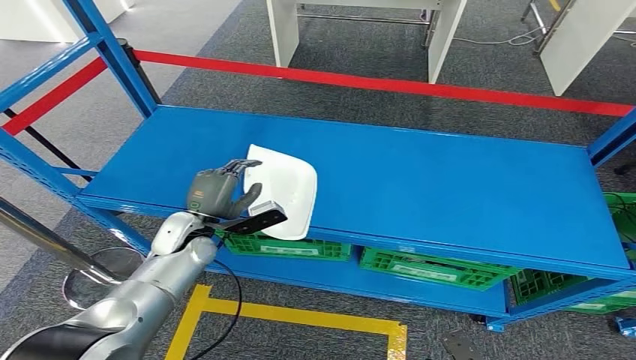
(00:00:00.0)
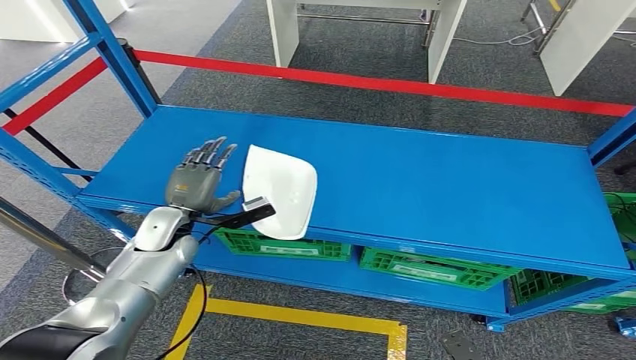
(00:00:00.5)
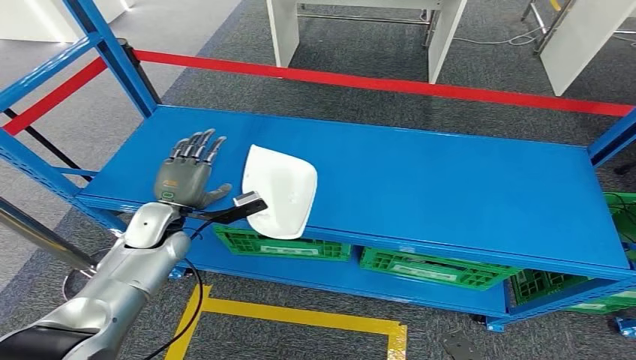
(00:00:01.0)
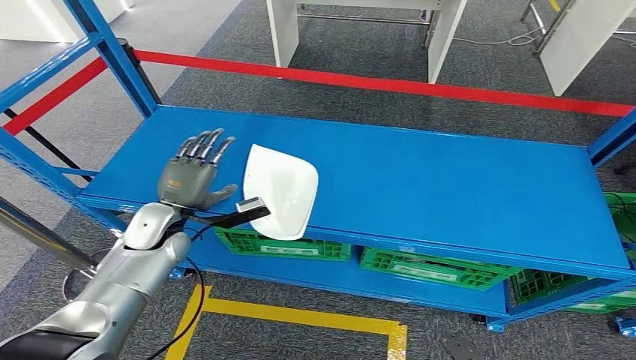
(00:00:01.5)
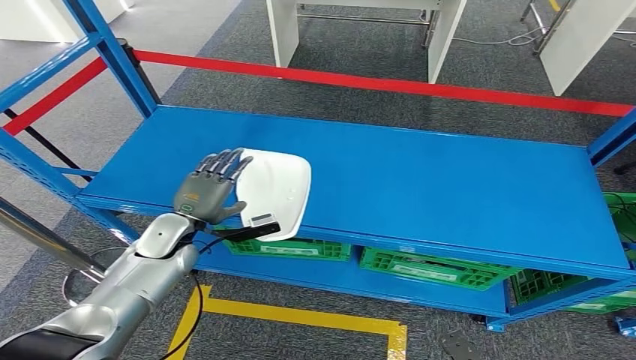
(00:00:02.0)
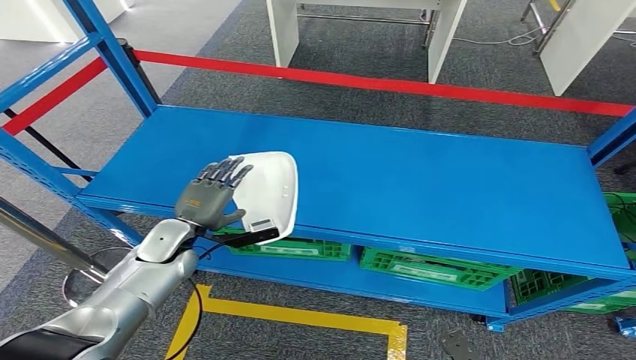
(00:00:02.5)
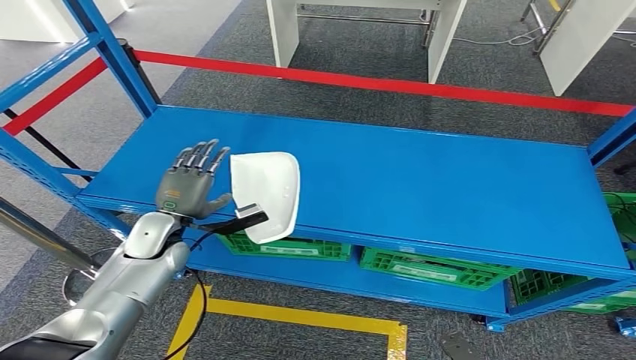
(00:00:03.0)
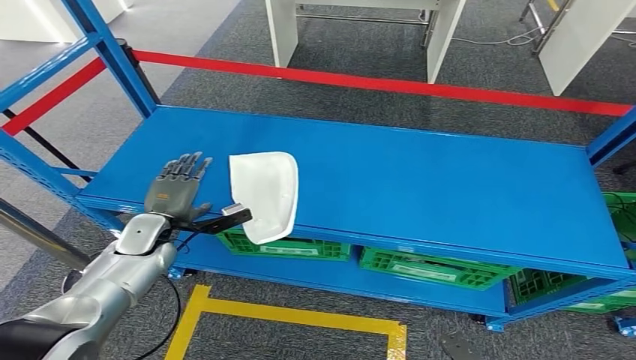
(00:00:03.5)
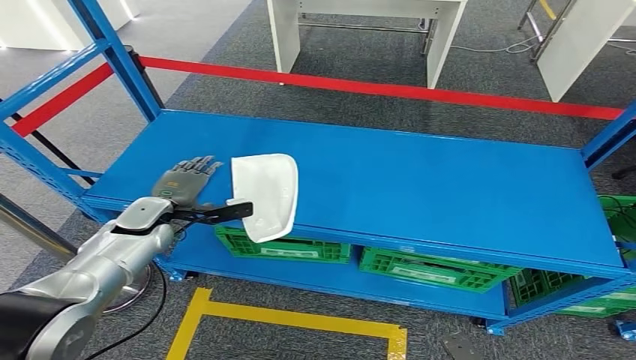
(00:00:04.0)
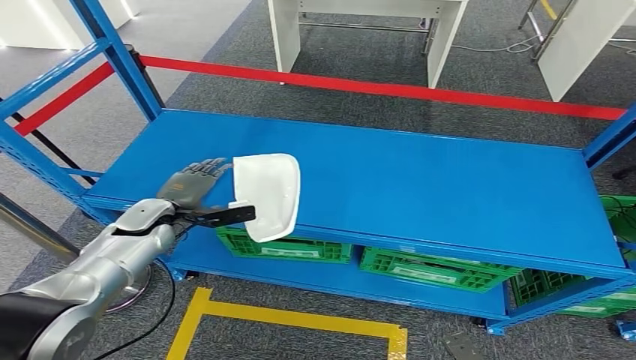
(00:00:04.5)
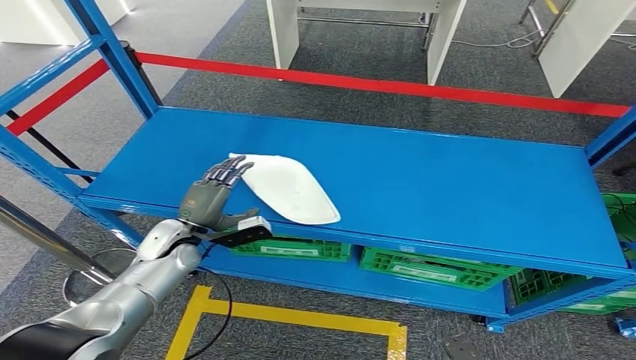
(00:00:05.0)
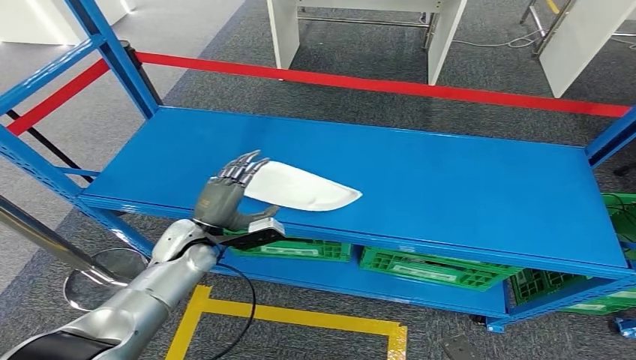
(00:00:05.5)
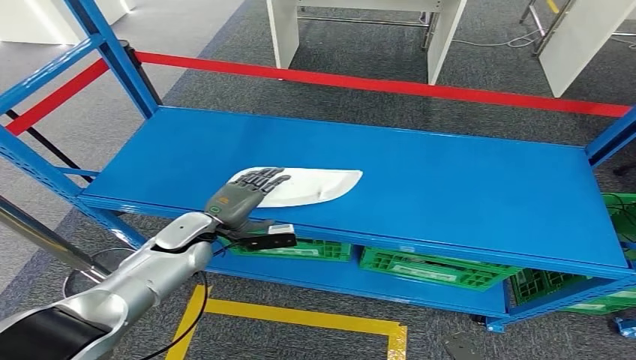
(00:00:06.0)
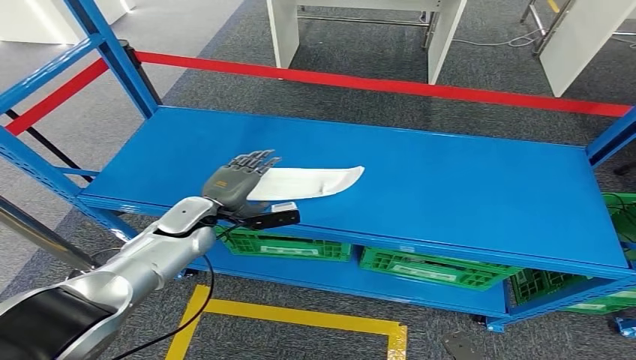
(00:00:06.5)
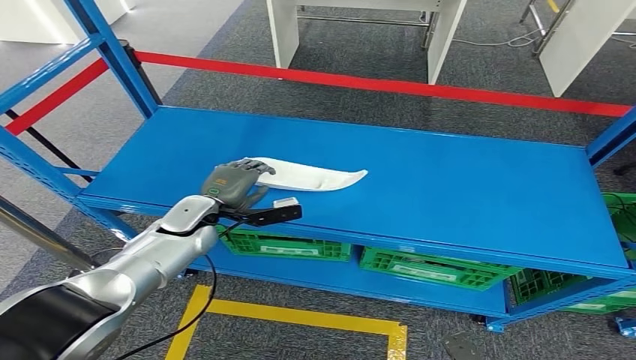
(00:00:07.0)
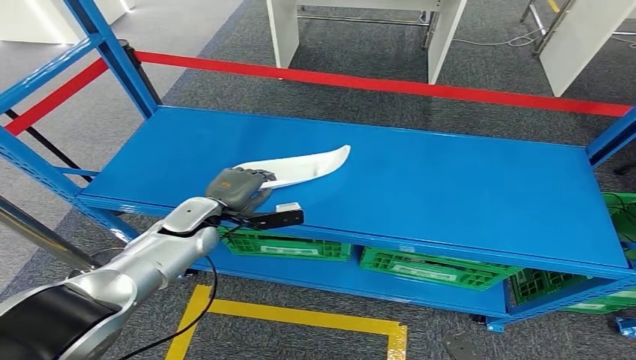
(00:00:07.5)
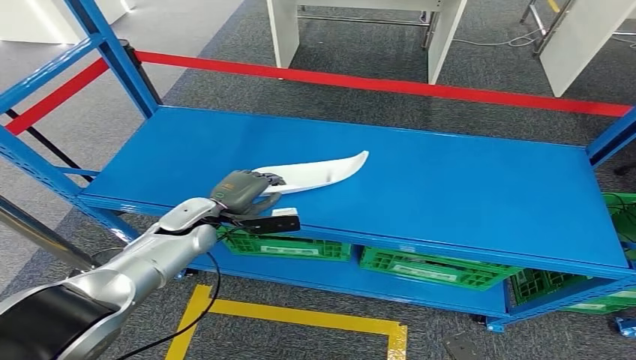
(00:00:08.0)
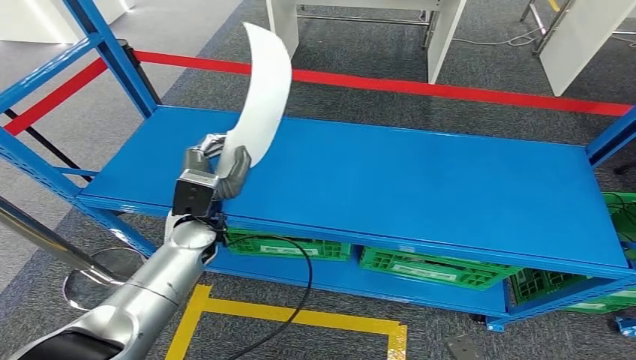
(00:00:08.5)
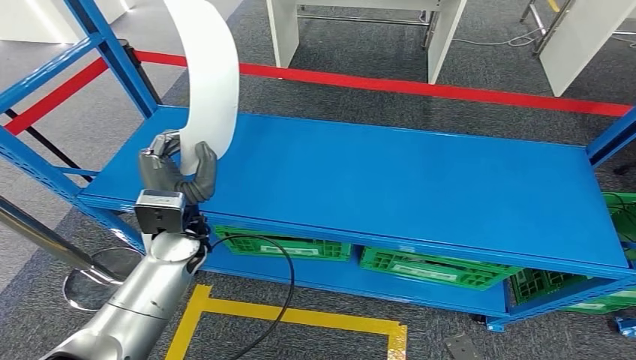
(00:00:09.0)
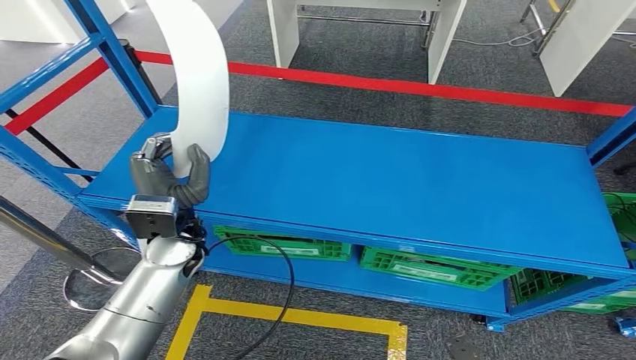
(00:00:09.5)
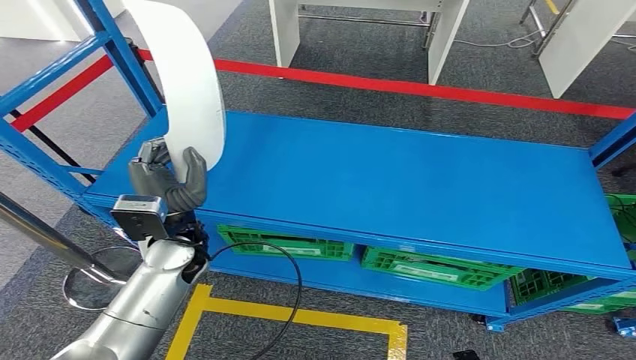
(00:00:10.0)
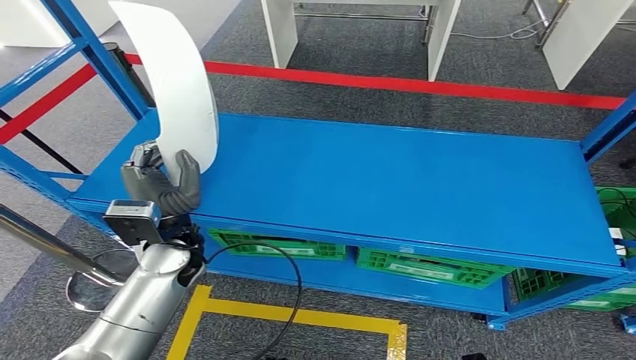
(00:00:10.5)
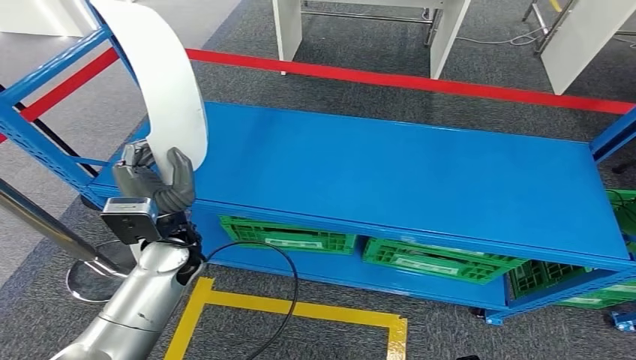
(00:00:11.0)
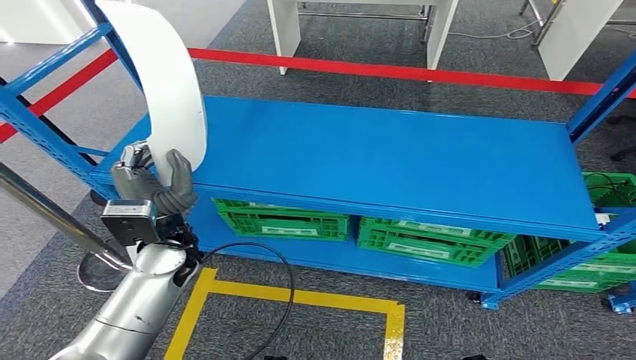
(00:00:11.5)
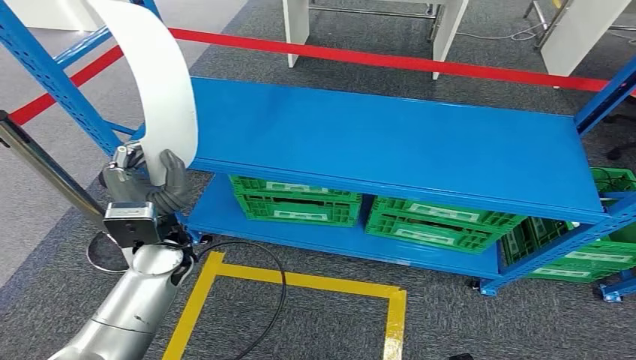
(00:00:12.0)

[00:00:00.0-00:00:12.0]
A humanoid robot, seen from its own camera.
00:00:00.0 to 00:00:02.0: The hands move only a little.
00:00:04.0 to 00:00:06.0: The left hand is displaced to the right by some 10 cm.
00:00:06.0 to 00:00:08.0: The hands move only a little.

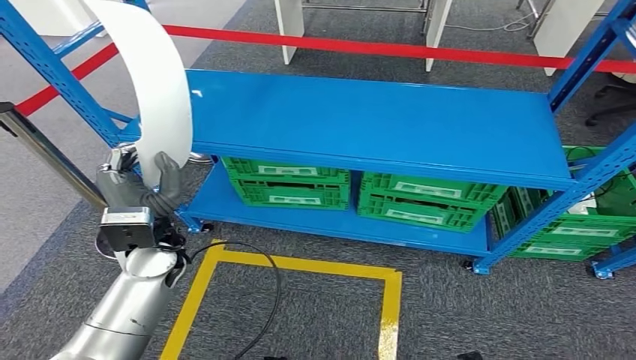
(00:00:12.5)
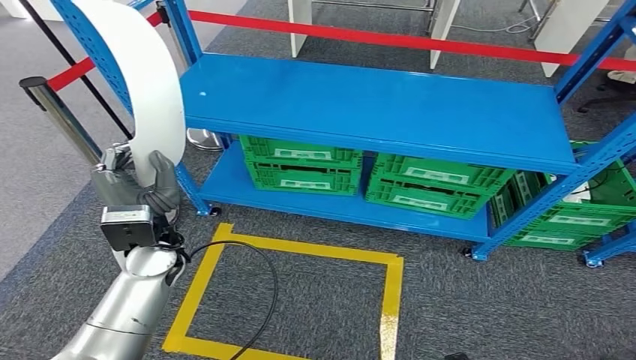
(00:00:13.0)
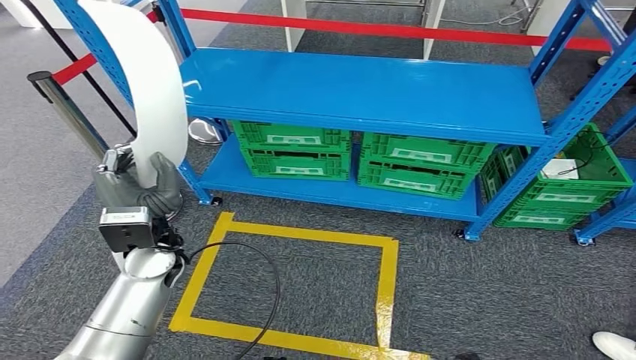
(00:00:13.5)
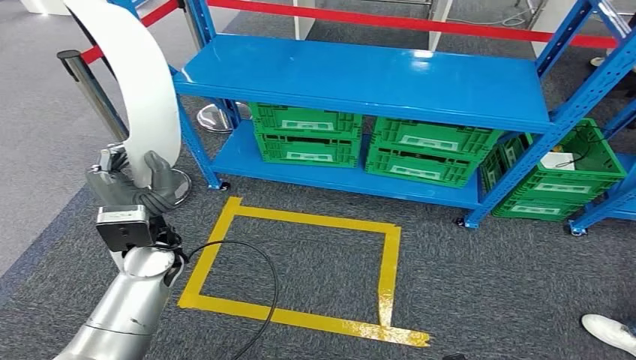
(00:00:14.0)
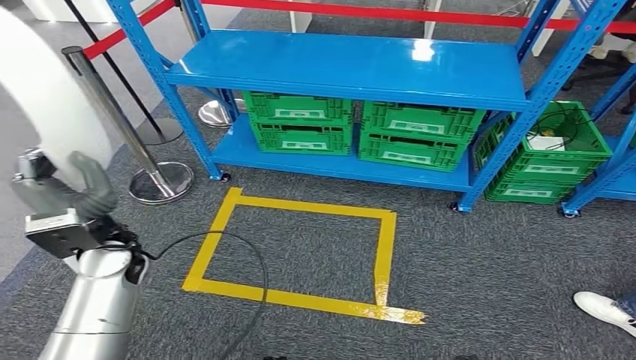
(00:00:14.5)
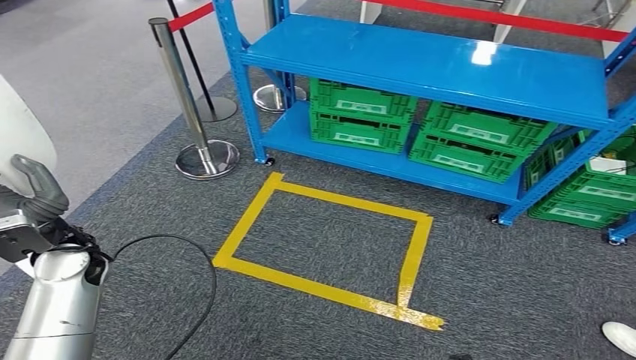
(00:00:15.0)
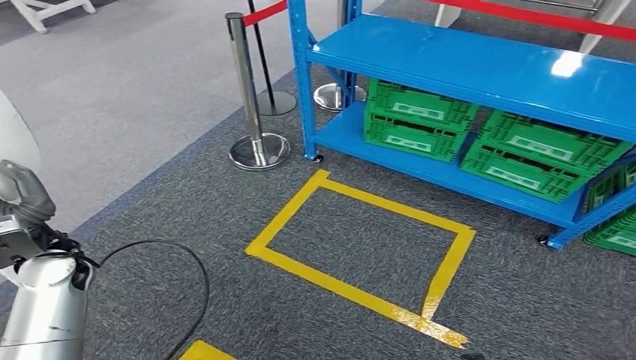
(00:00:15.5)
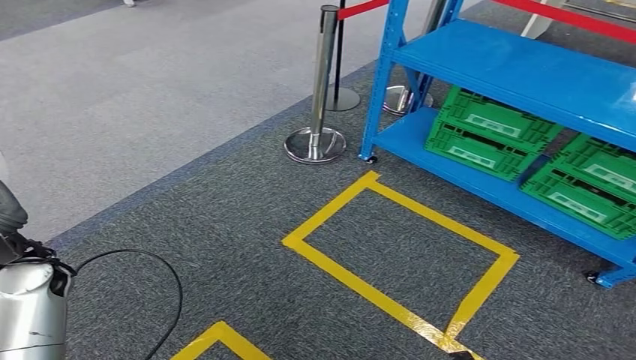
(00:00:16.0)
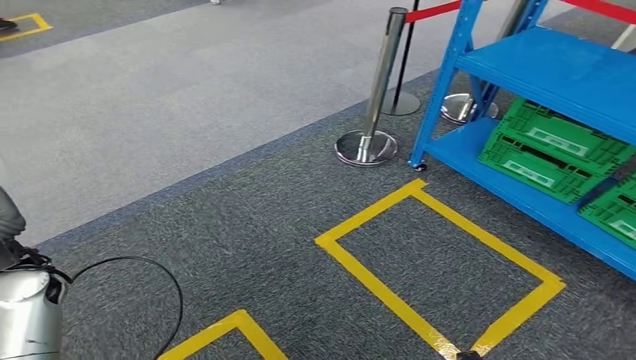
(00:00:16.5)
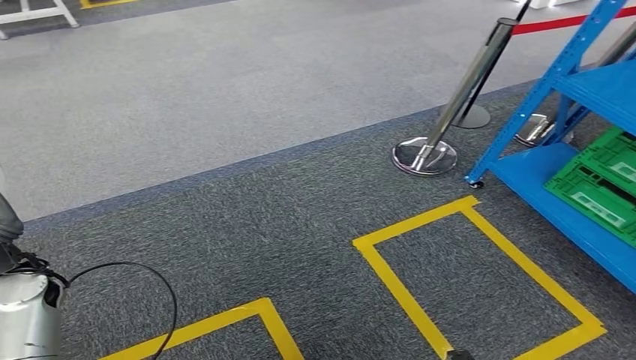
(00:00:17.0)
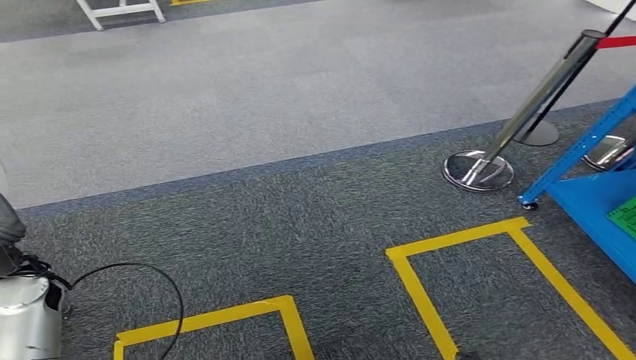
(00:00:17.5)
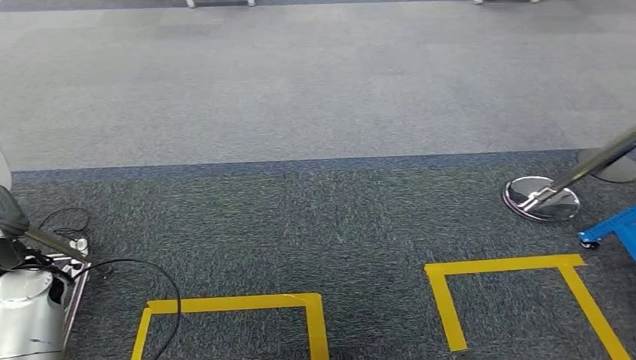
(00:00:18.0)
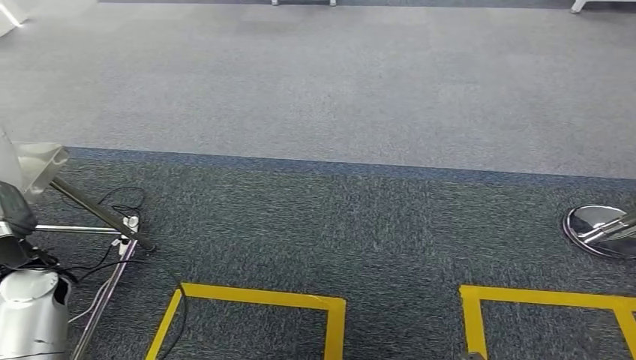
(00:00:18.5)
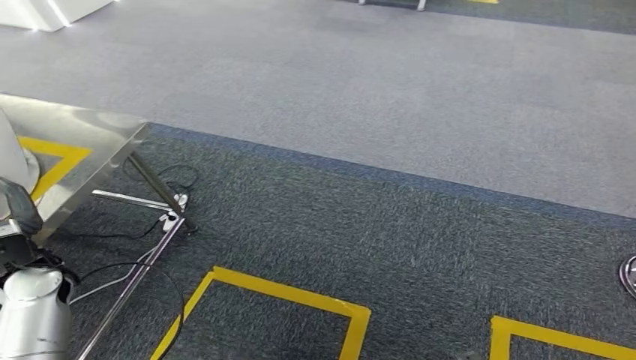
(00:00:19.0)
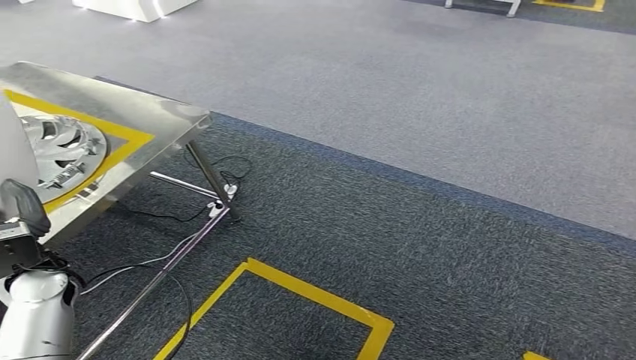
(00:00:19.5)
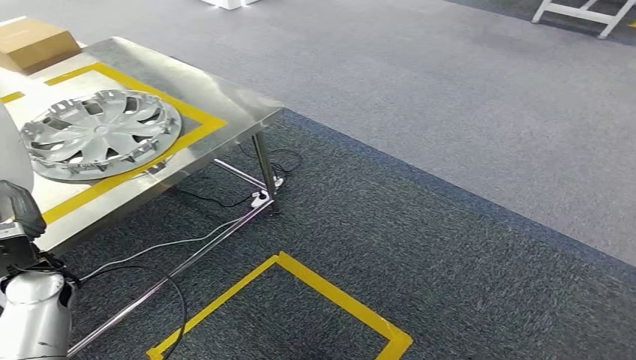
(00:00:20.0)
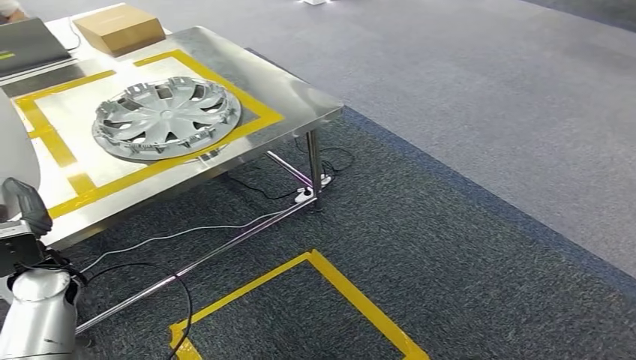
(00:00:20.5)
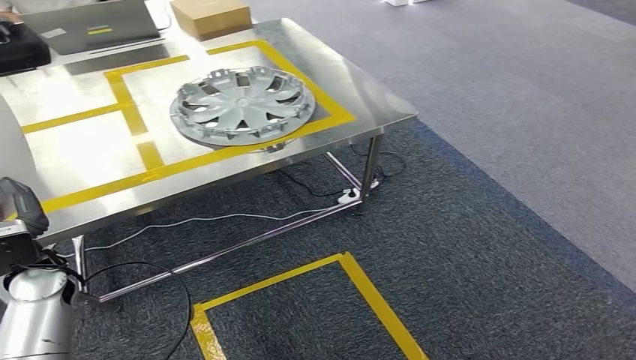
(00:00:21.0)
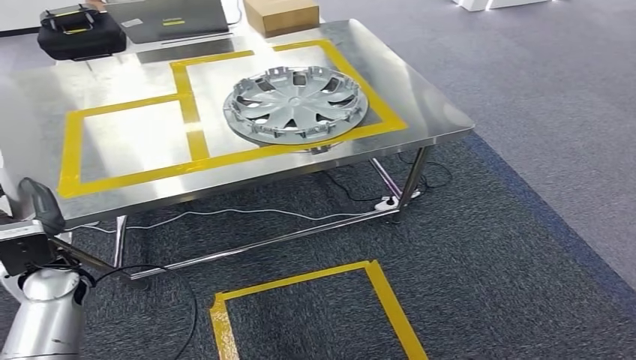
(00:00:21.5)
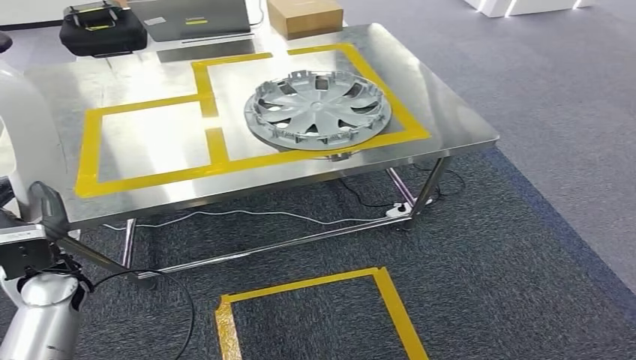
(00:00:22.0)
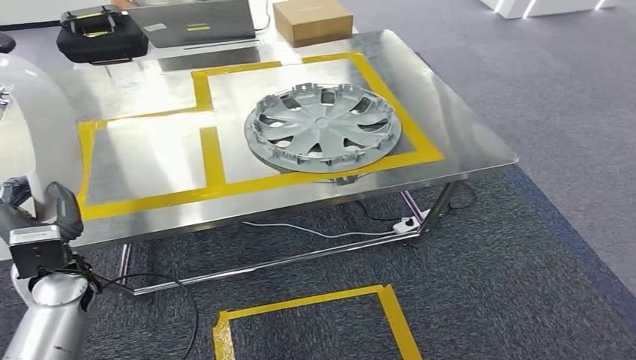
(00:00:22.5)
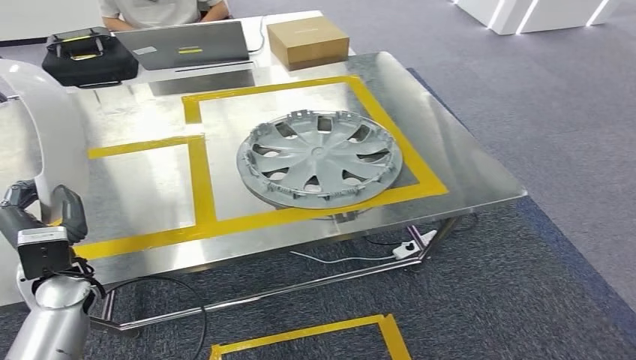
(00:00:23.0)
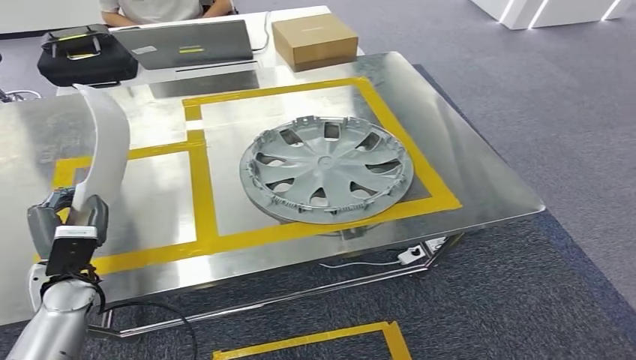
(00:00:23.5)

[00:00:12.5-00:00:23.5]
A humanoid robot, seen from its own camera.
Step, 00:00:12.5 to 00:00:22.5: Bring the small component to the front of the workbench.
